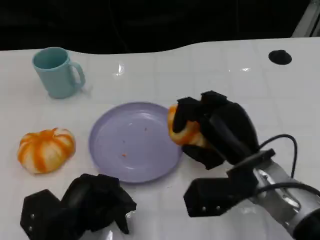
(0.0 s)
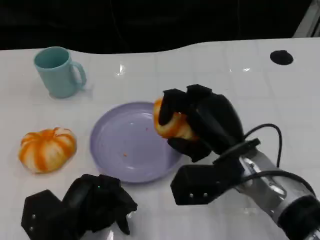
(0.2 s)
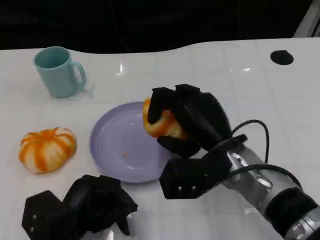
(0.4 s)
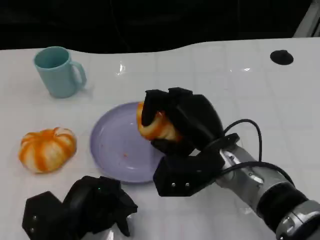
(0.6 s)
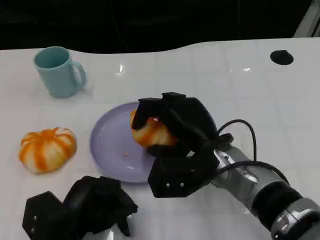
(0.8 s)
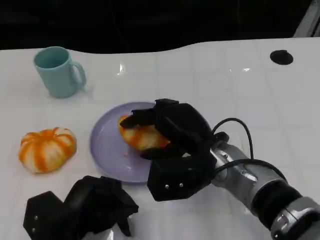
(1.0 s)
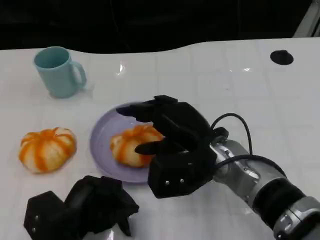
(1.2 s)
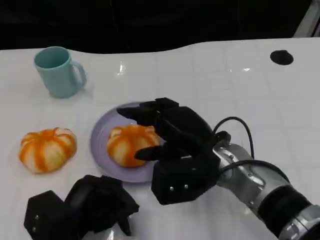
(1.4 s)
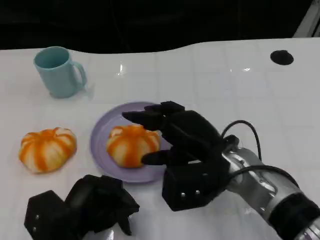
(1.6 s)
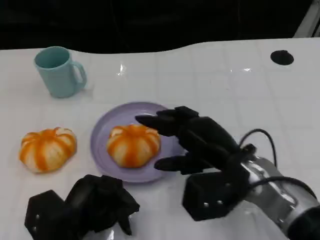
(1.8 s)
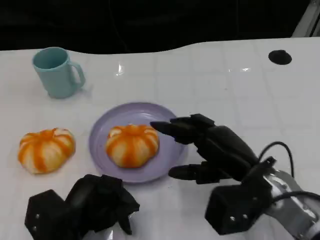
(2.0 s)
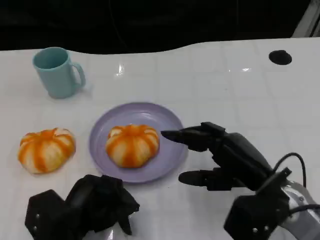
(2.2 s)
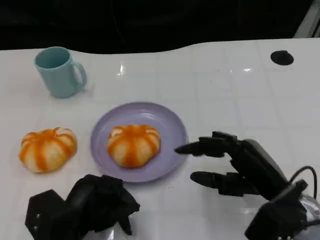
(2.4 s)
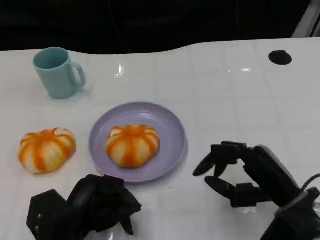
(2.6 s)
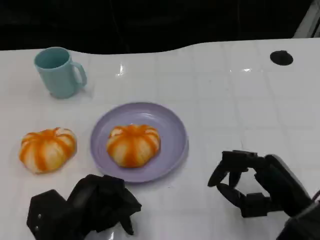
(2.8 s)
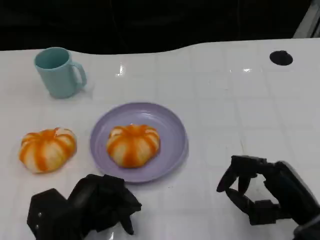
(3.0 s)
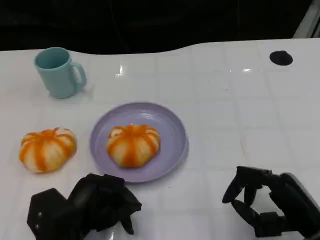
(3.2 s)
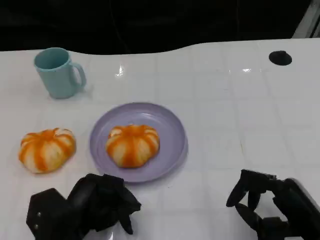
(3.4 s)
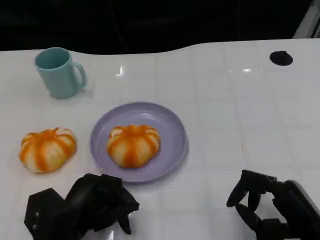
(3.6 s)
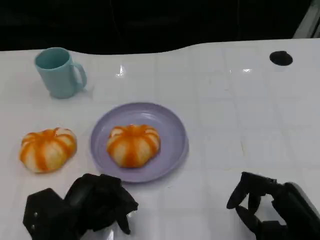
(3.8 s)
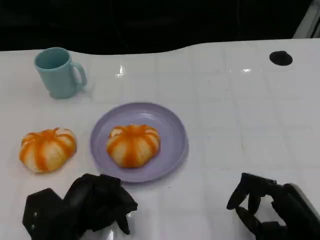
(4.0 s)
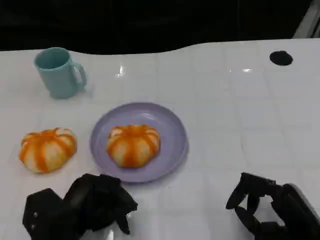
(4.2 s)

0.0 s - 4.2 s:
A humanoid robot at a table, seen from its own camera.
Task of the whole recording: Grasp the bread from the table and place it into the plate.
1.4 s - 2.8 s: The right hand heads to the right and backward, covering some 15 cm.
2.8 s - 4.2 s: The hands move only a little.

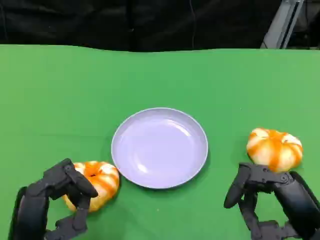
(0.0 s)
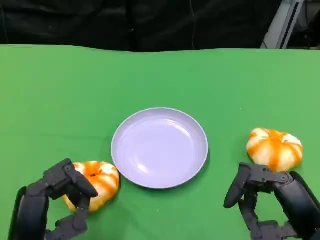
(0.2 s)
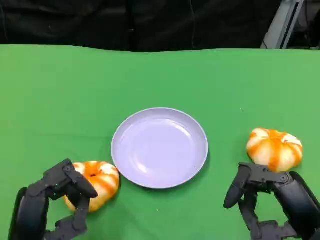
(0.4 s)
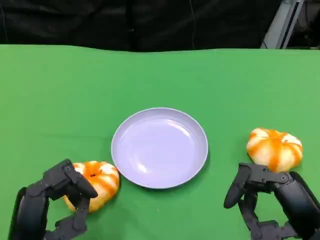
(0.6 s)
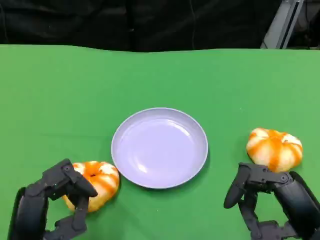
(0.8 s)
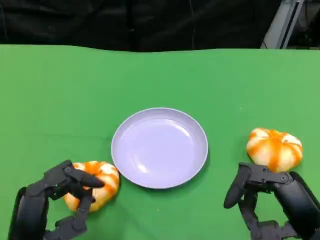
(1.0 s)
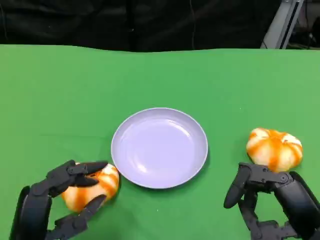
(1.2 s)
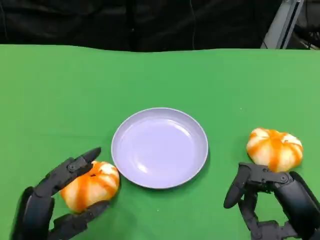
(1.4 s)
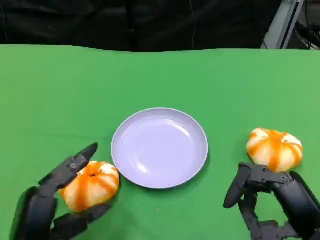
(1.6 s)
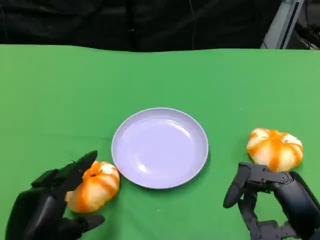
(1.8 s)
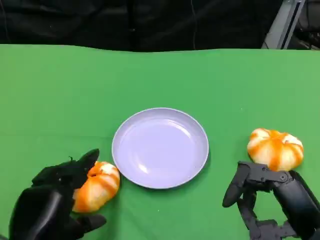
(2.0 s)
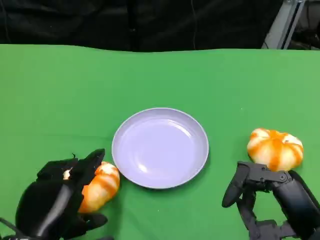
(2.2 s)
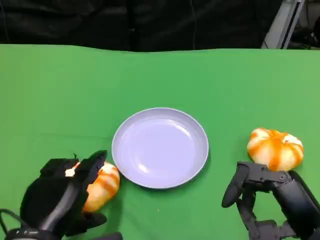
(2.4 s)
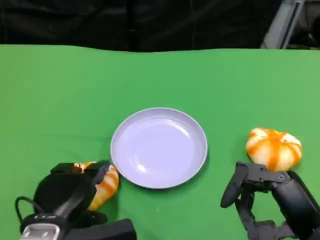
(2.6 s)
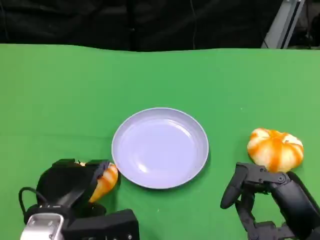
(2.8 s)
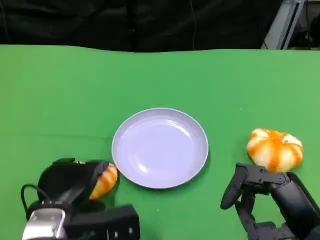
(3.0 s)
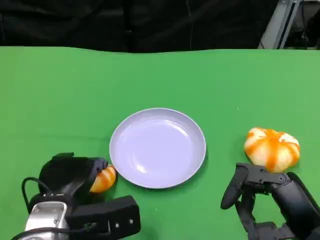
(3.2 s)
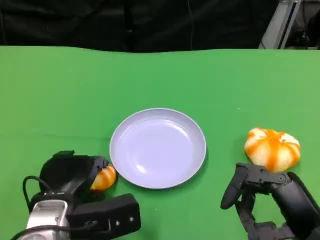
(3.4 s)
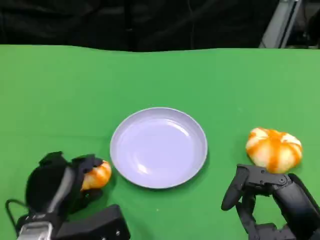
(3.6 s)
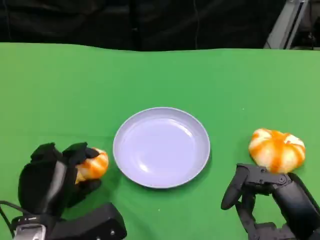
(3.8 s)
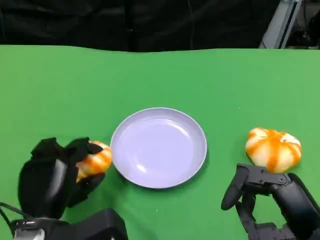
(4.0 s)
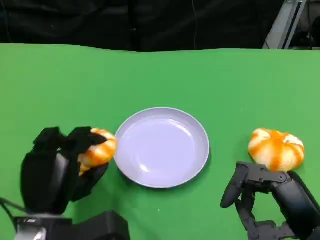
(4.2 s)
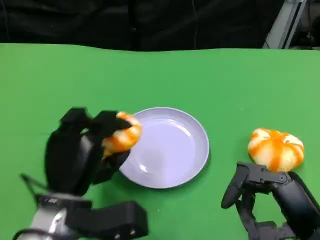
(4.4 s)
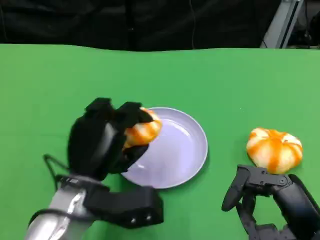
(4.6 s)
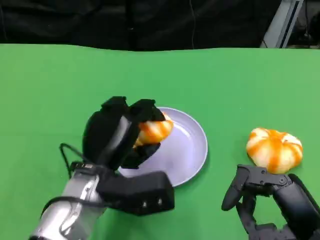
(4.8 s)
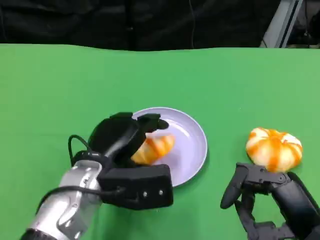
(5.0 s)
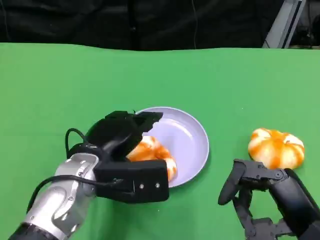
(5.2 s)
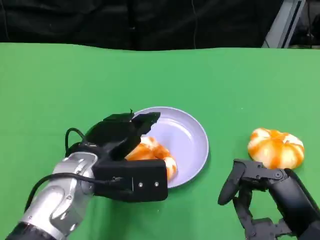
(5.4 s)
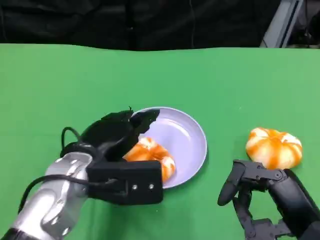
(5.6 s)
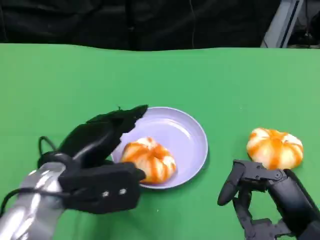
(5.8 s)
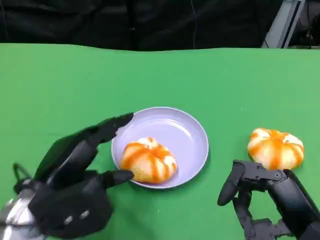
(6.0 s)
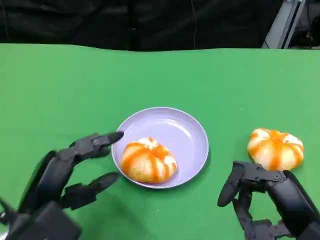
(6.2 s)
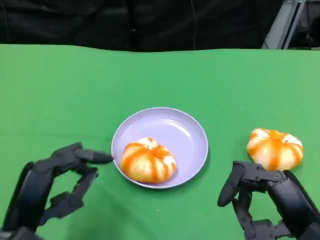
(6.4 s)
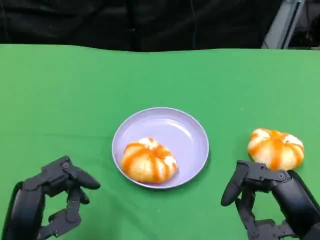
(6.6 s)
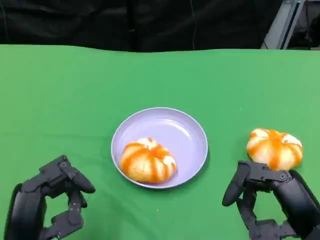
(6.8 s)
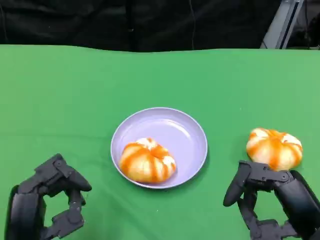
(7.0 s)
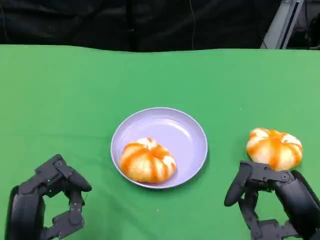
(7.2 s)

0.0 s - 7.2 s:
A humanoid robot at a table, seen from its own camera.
Task of the whole recording: Grasp the bread from the table and place it into the plate.
0.0 s - 1.4 s: The hands move only a little.
1.4 s - 2.8 s: The left hand is displaced forward by approximately 5 cm.
5.8 s - 7.2 s: The left hand heads backward and downward, covering about 10 cm.

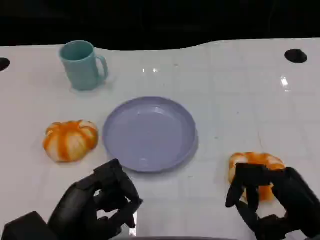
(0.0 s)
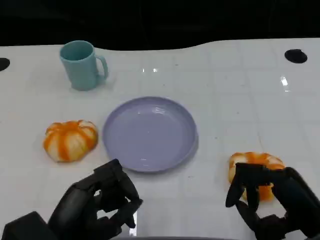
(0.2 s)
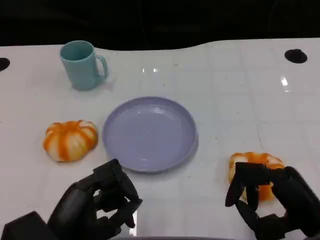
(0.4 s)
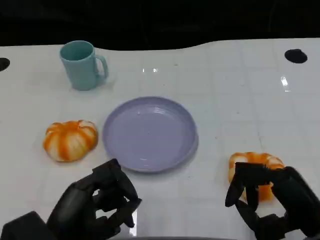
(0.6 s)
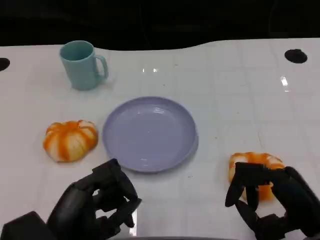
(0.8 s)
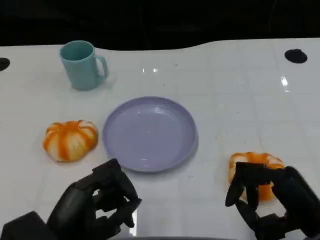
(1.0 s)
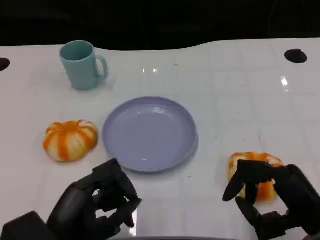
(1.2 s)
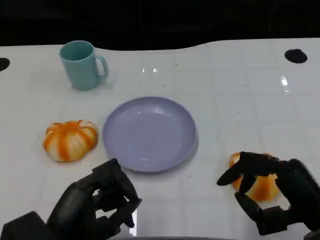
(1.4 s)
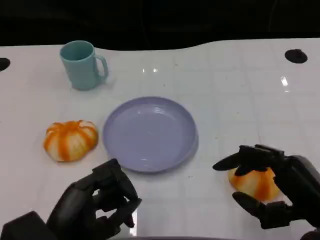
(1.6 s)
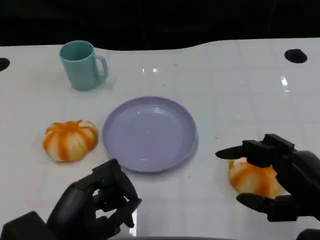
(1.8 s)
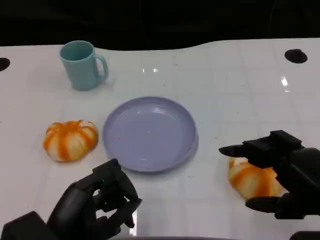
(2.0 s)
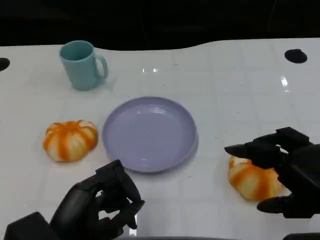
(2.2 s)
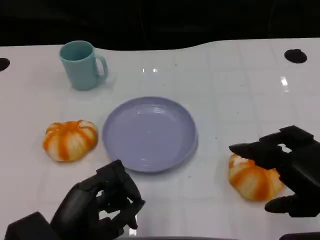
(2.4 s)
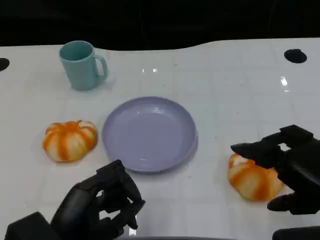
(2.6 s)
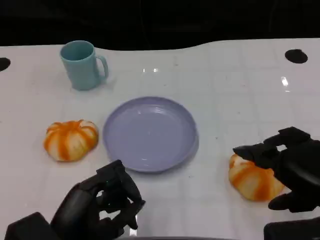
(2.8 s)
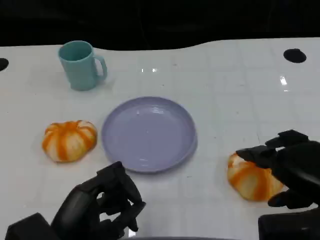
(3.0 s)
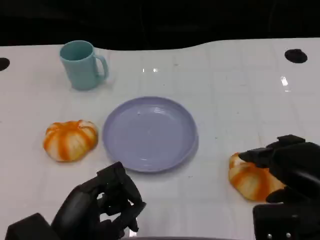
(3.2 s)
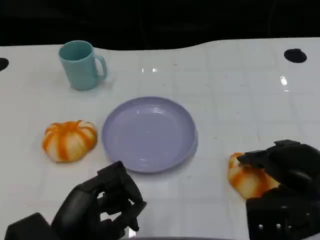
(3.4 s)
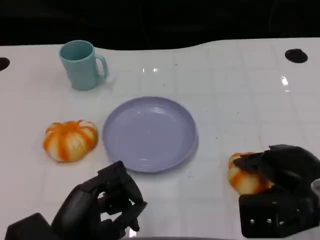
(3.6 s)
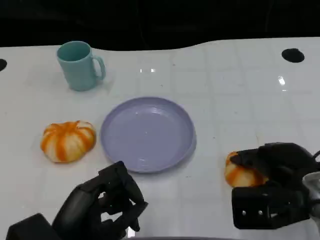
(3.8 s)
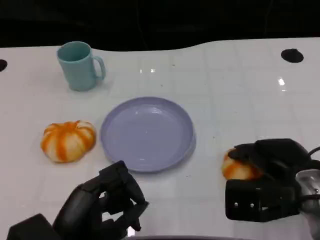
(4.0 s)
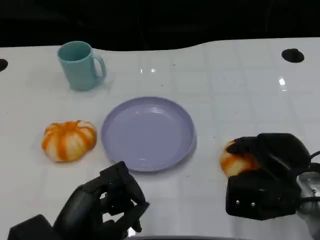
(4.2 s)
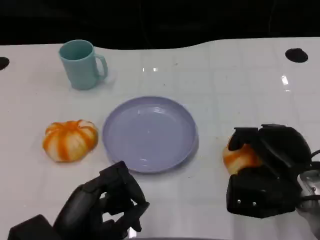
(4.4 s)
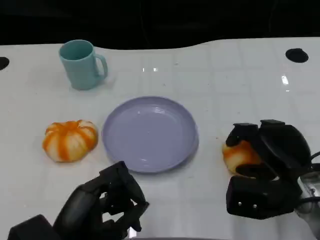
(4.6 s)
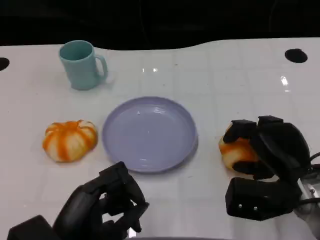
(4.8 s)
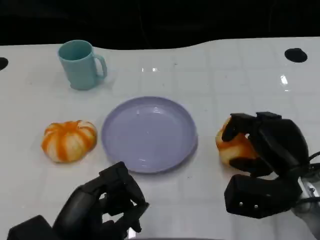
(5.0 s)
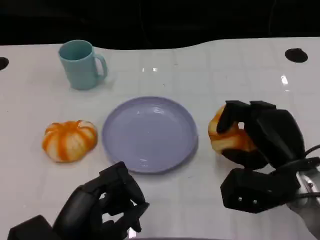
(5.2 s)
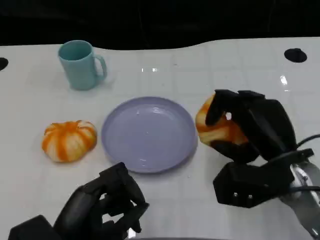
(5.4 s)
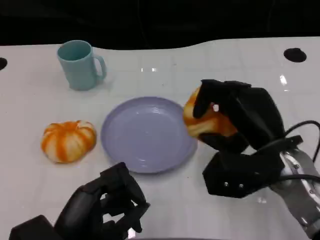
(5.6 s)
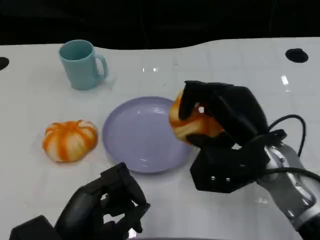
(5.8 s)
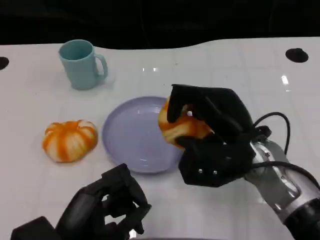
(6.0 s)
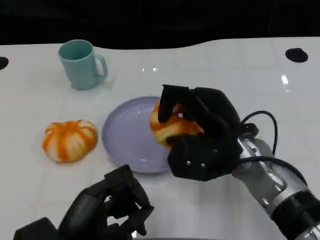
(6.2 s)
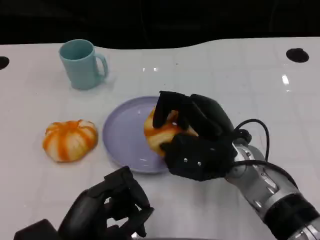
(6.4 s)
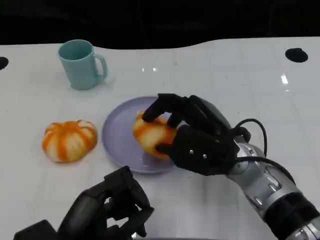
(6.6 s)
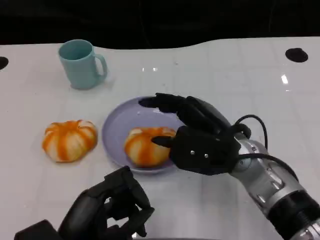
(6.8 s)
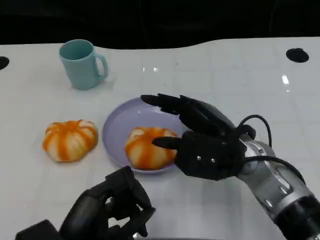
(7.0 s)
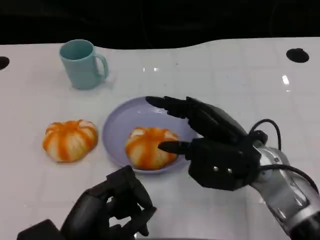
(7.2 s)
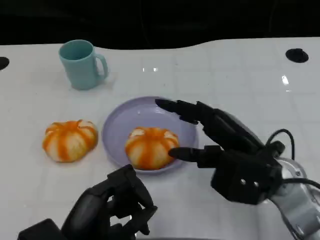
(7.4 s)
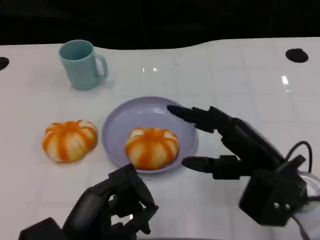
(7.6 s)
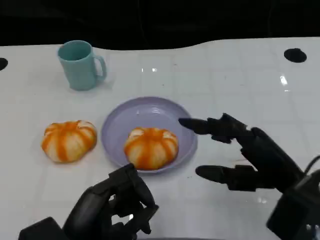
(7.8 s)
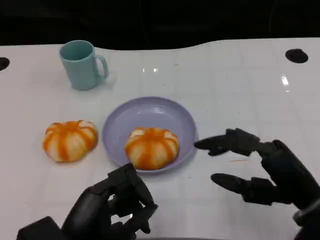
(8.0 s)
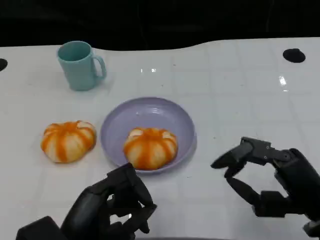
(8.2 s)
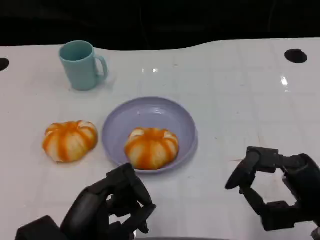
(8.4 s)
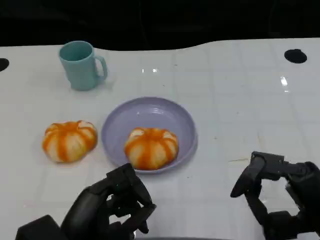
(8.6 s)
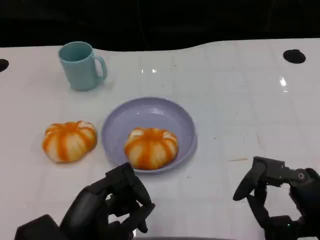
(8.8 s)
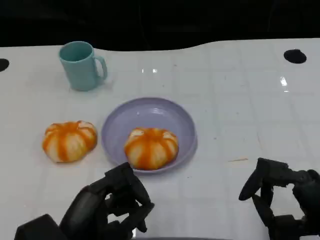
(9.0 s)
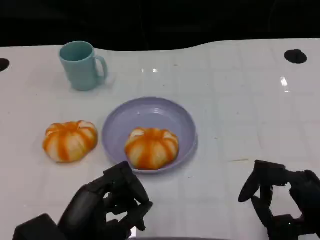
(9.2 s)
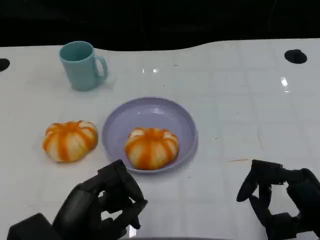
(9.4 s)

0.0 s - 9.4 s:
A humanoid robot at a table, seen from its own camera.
Task of the whole recording: Grasp the bread from the table and place it into the plate.
0.0 s - 1.6 s: The hands stay close to where they were, moving slightly.
3.2 s - 4.8 s: The right hand is displaced downward by roughly 5 cm.
4.8 s - 6.2 s: The right hand travels to the left by about 10 cm.
6.2 s - 7.8 s: The right hand shifts approximately 10 cm to the right and backward.
7.8 s - 9.4 s: The right hand shifts by about 5 cm.

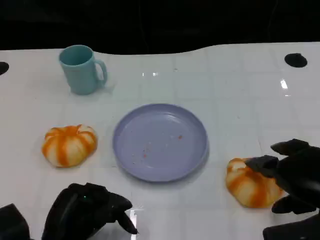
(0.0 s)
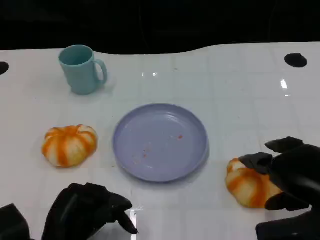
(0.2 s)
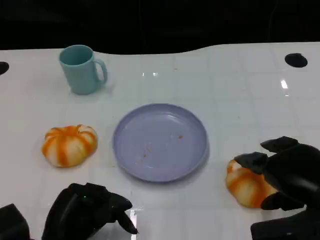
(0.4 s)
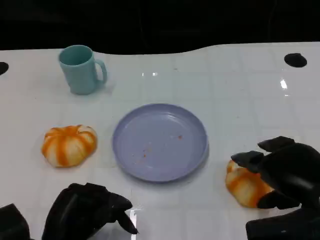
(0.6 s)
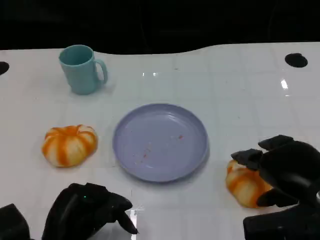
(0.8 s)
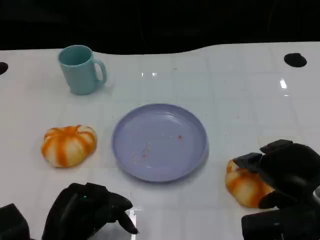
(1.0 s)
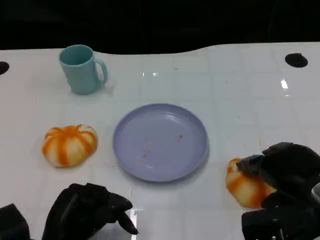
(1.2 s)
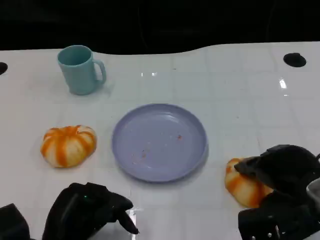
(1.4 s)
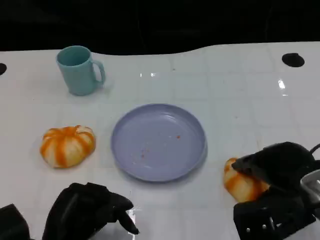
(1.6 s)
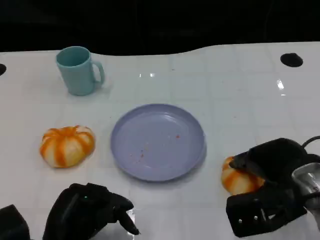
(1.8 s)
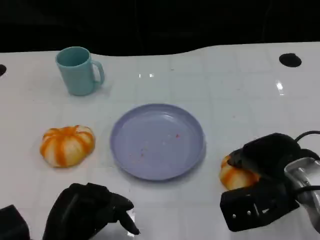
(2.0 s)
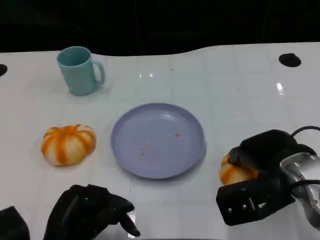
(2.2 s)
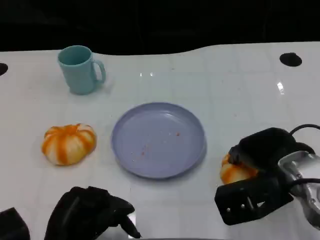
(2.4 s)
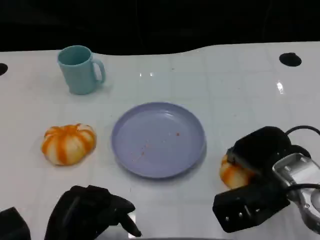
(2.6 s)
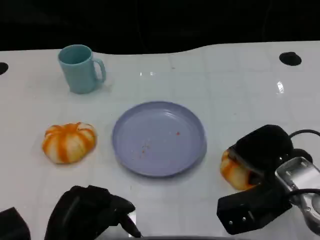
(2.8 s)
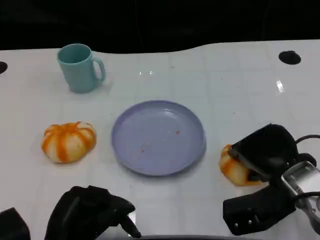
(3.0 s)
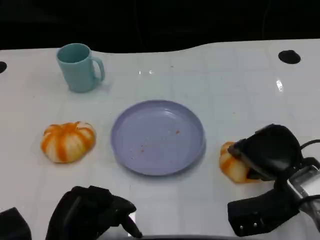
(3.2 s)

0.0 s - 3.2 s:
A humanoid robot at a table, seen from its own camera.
Task of the whole recording: Grasp the bread from the table and place it into the plate.
0.0 s - 1.6 s: The right hand changes place by some 5 cm.
